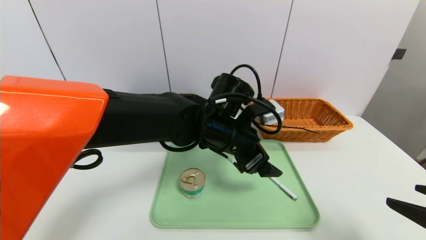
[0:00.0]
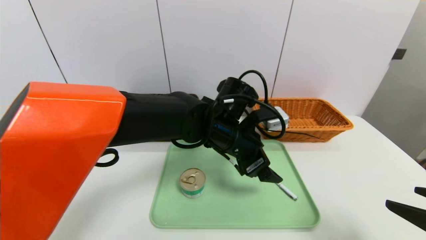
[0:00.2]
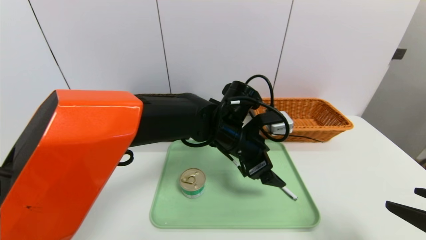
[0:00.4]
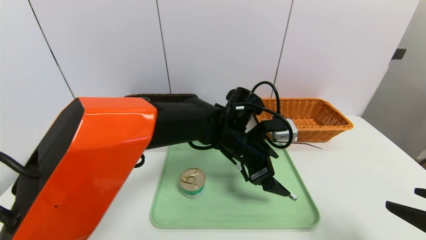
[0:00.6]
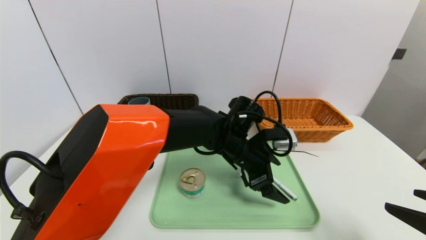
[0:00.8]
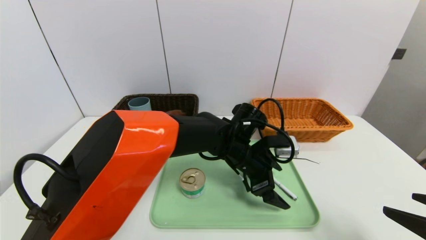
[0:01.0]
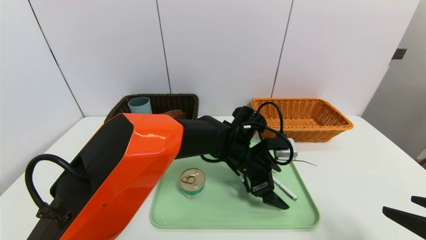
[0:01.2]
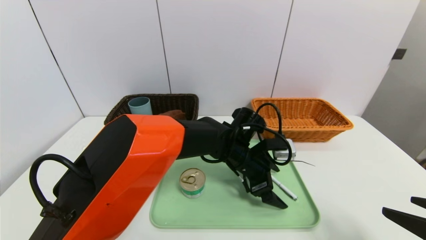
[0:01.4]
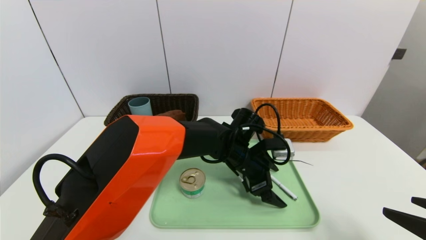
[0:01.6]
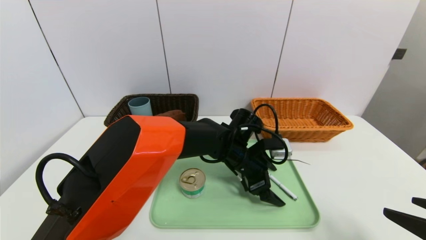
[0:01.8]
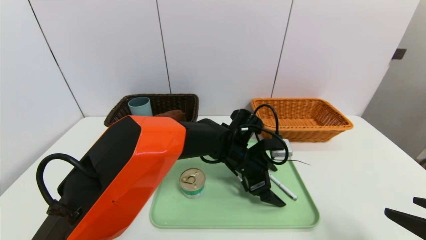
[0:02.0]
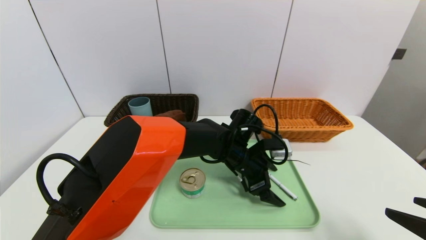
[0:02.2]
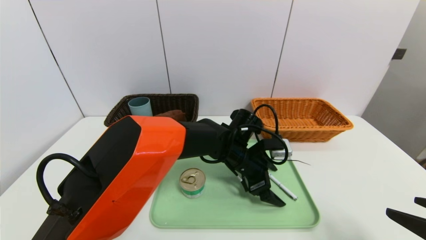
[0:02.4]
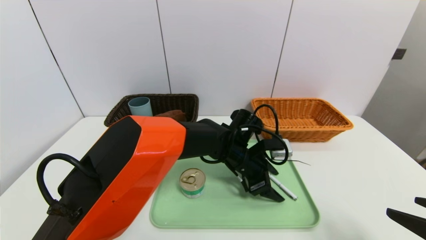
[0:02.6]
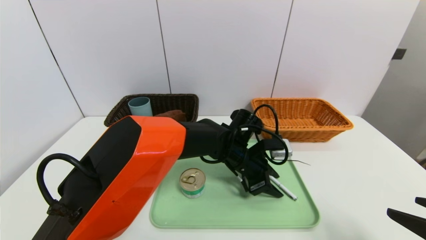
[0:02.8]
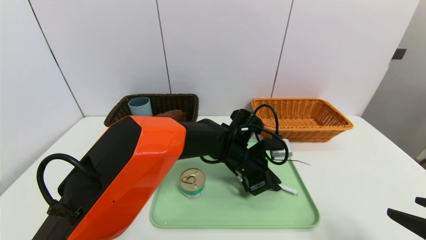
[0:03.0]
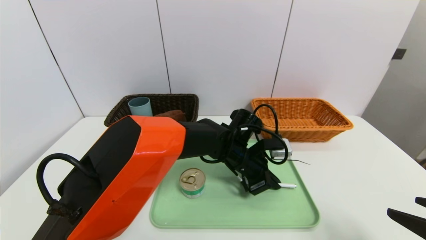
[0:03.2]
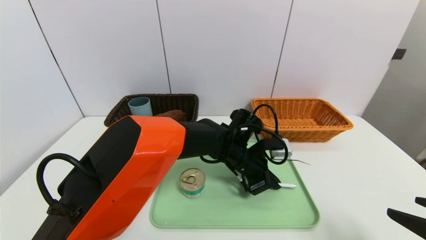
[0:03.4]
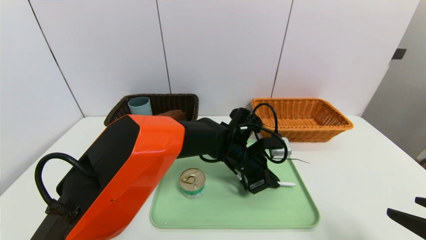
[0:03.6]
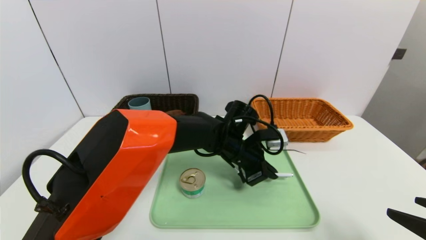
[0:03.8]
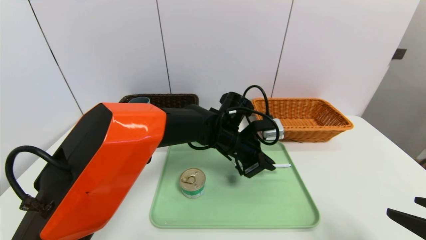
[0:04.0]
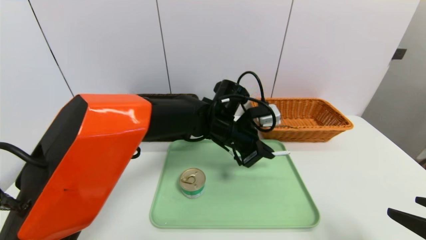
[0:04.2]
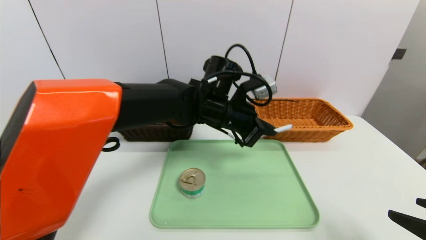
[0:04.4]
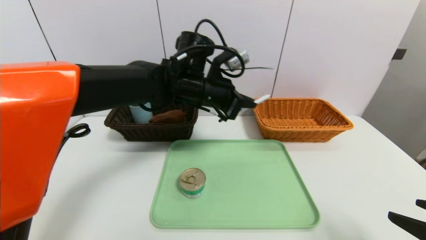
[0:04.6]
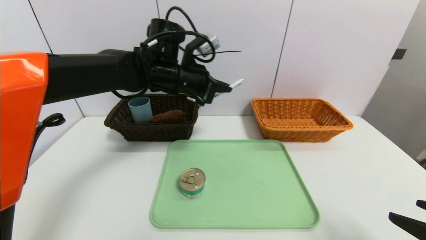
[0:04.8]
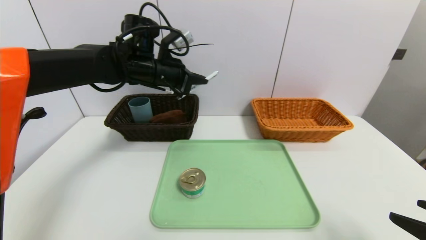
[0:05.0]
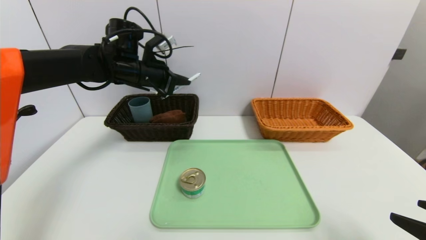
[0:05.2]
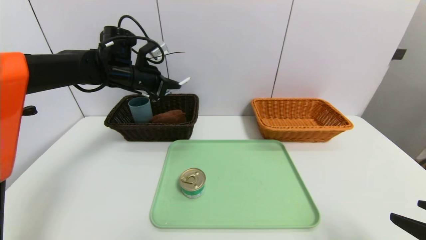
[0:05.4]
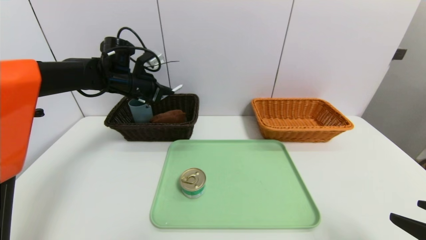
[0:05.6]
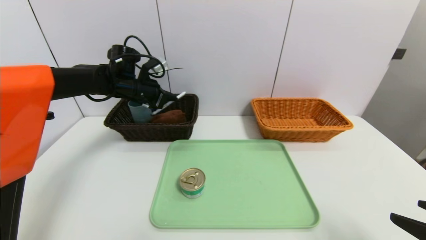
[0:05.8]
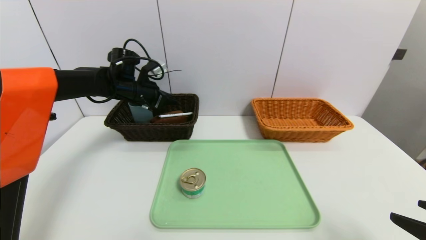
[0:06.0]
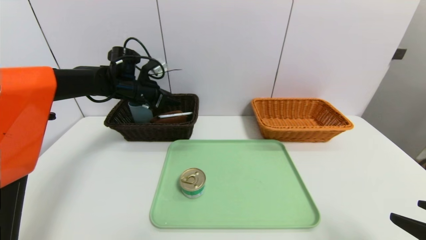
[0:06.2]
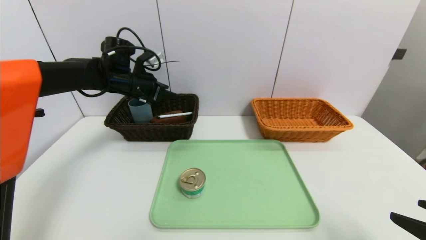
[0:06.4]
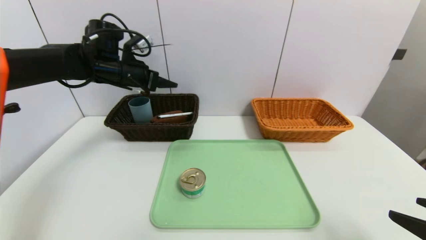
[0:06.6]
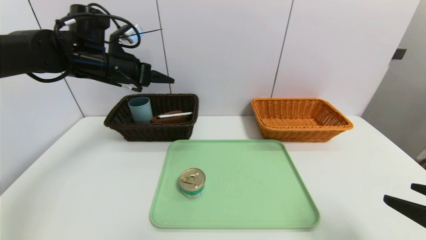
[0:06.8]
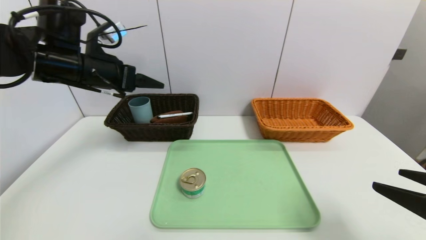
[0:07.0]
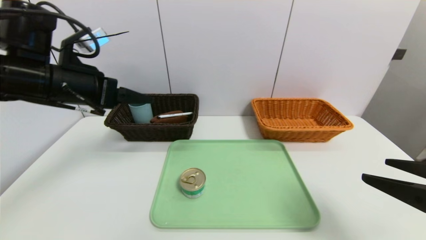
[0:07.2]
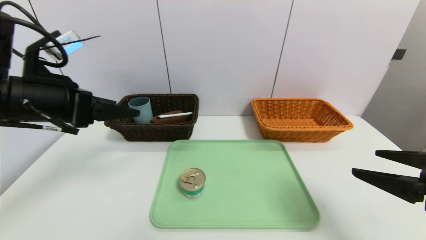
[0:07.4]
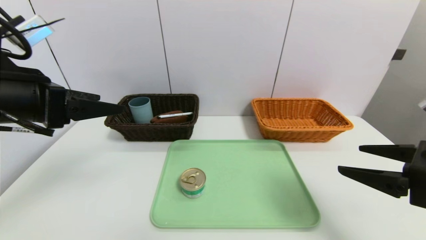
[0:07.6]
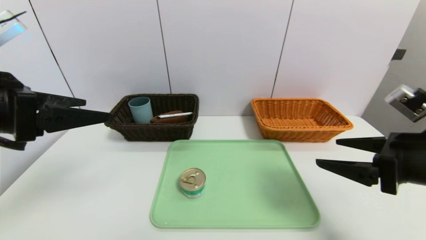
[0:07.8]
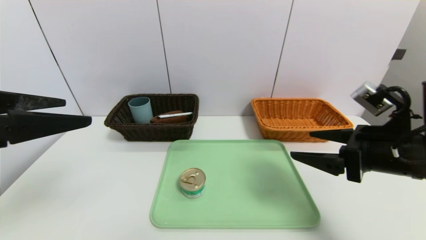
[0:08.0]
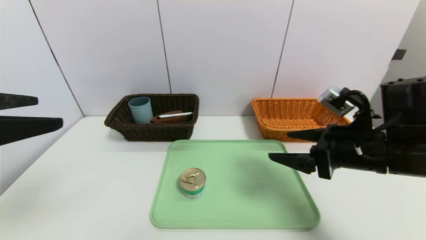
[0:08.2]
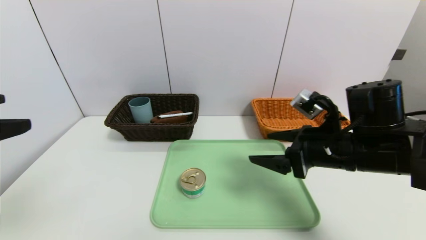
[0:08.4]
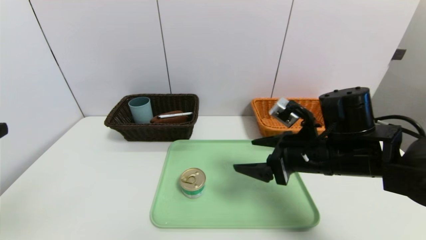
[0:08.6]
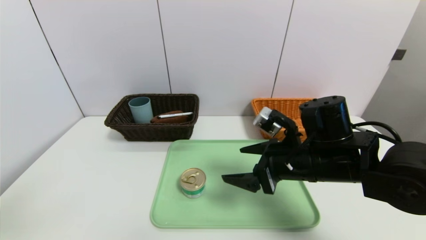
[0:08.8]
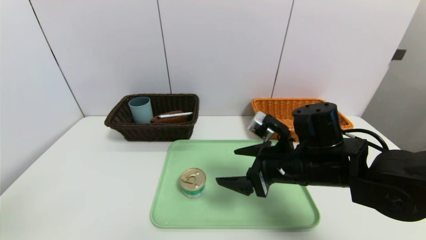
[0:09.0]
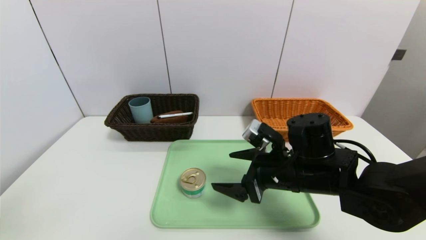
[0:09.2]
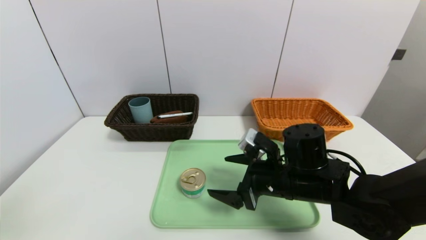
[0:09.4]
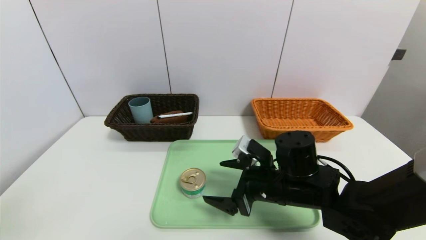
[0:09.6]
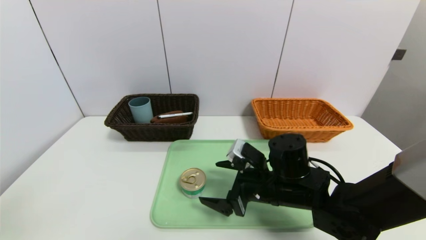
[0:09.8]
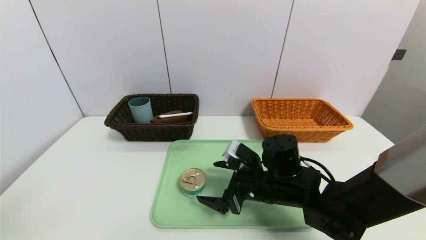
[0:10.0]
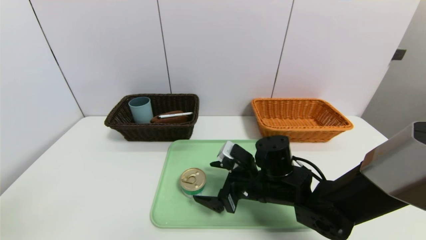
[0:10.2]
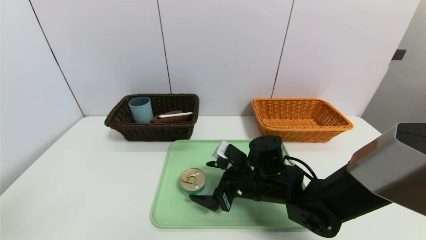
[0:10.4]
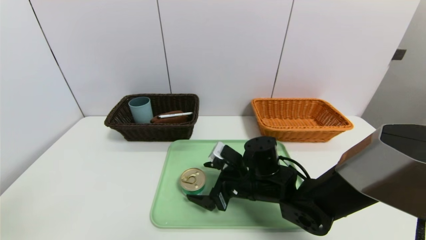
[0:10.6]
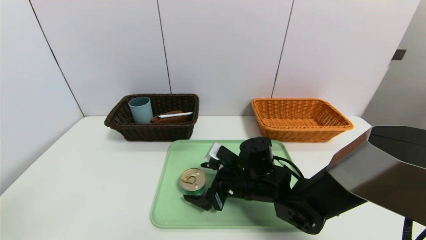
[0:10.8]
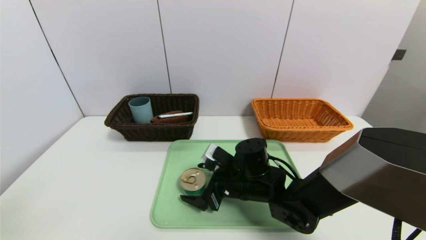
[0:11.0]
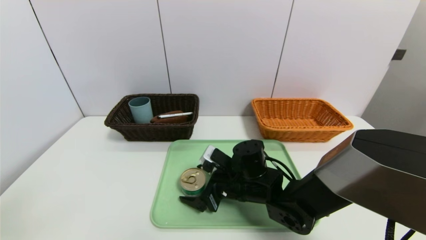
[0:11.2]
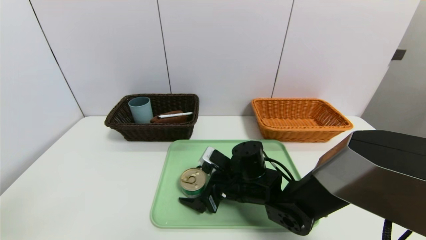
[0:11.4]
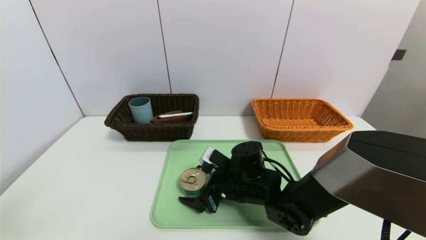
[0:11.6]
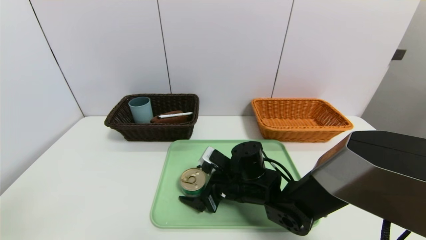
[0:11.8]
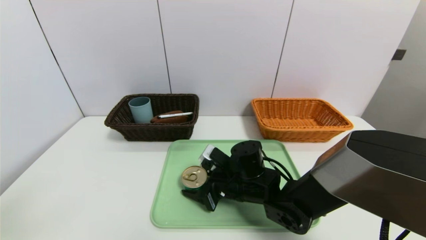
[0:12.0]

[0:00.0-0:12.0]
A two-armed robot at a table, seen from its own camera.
Task of the whole recording: place the food in the right basket with the right gripper, and place the non food items in the left basket with the left gripper.
Step, 0:00.0 to 0:06.2: Grasp the ballpoint pen and put it in the left basket.
0:00.0 to 0:01.6: The left gripper is displaced downward by some 10 cm.
0:01.6 to 0:03.0: The left gripper closes.
0:03.0 to 0:04.4: The left gripper goes approximately 15 cm upward and to the left.
0:04.4 to 0:06.0: The left gripper shifts approximately 25 cm to the left and forward, and opens.
0:06.0 to 0:07.6: The right gripper is displaced forward by approximately 10 cm. The left gripper goes about 25 cm backward, and opens.
0:07.6 to 0:09.0: The left gripper goes some 15 cm backward; the right gripper goes some 20 cm to the left, forward and downward.
0:09.0 to 0:10.4: The right gripper travels downward and to the left by some 10 cm.
0:10.4 to 0:12.0: The right gripper closes.

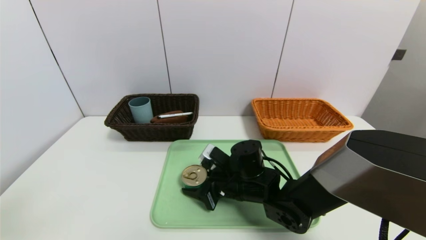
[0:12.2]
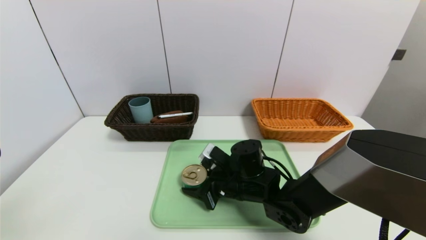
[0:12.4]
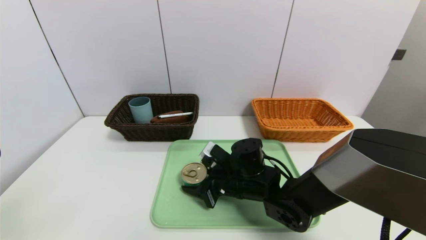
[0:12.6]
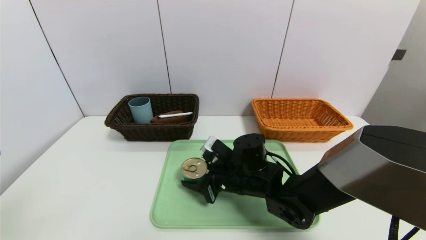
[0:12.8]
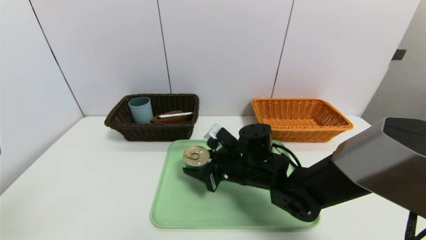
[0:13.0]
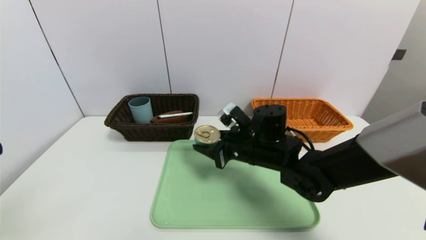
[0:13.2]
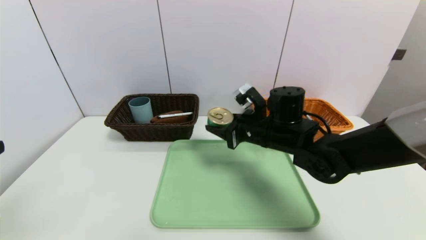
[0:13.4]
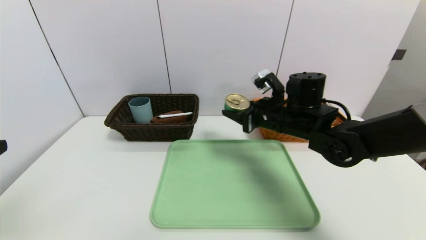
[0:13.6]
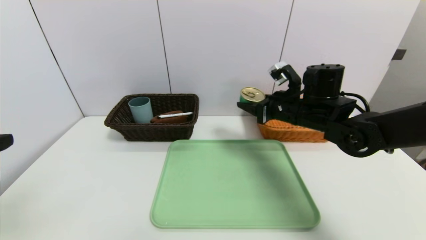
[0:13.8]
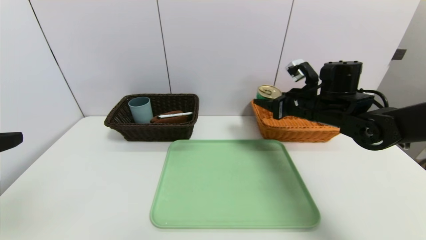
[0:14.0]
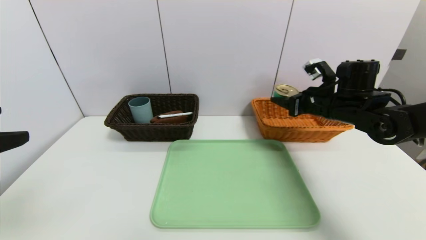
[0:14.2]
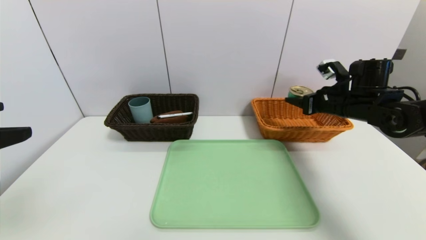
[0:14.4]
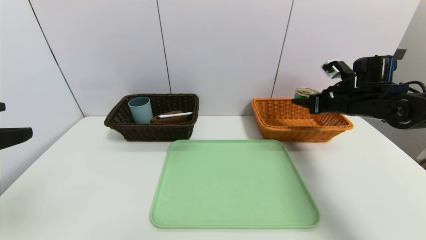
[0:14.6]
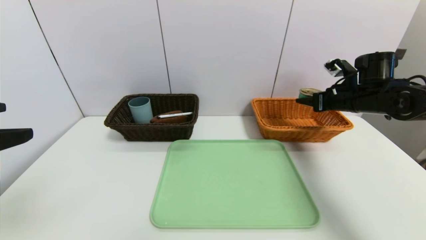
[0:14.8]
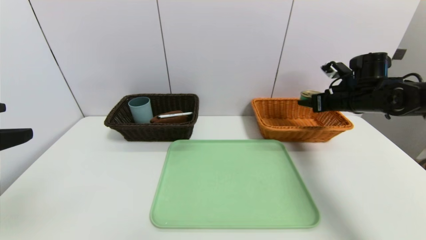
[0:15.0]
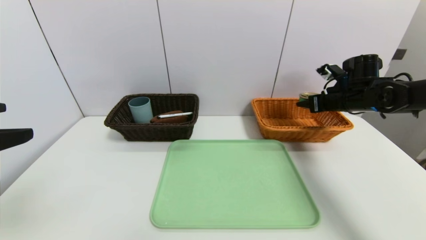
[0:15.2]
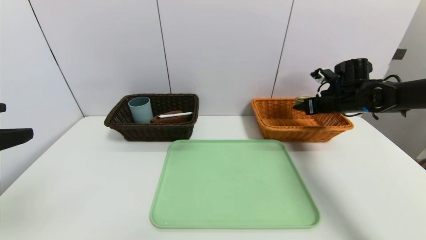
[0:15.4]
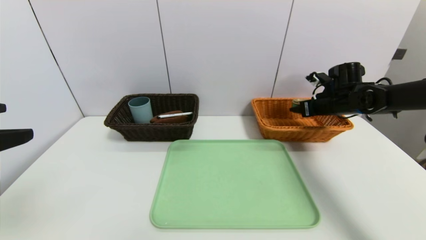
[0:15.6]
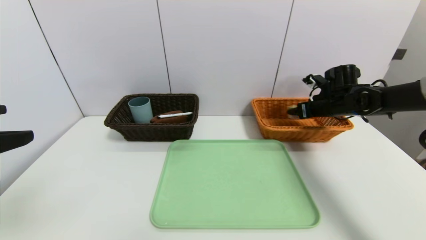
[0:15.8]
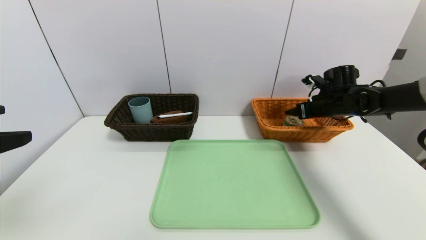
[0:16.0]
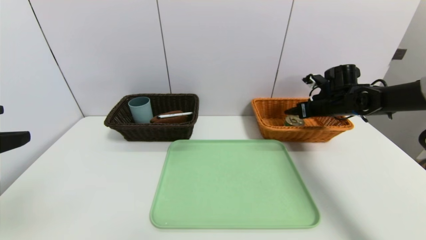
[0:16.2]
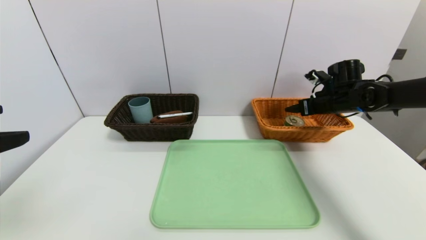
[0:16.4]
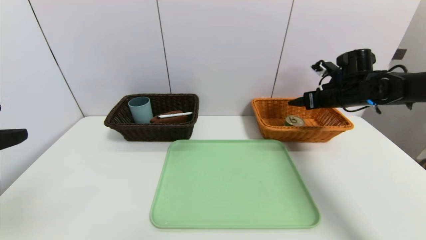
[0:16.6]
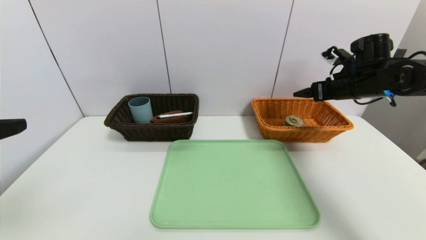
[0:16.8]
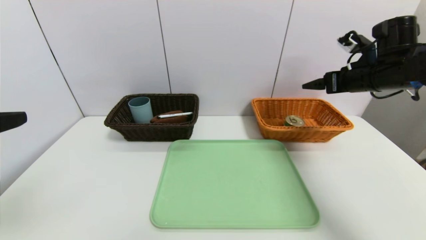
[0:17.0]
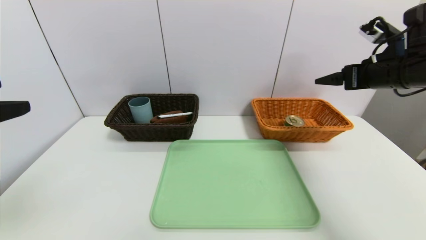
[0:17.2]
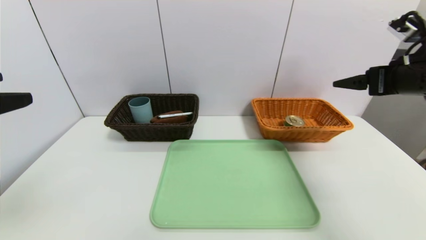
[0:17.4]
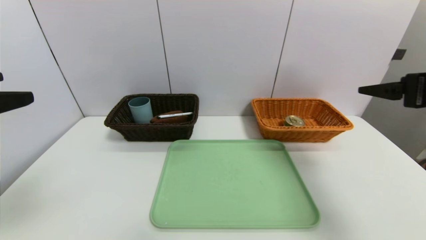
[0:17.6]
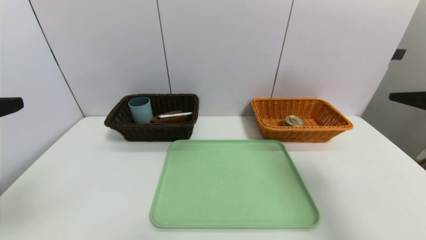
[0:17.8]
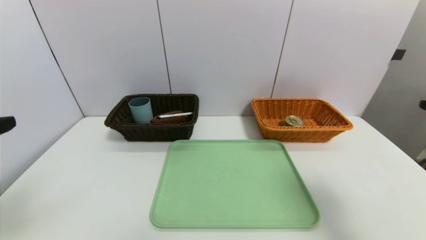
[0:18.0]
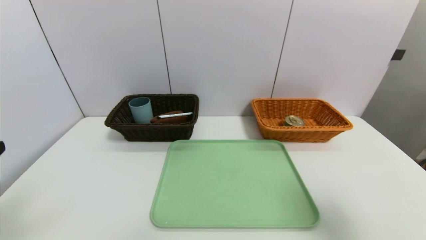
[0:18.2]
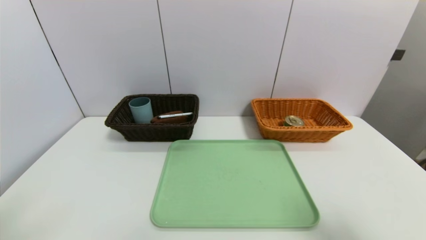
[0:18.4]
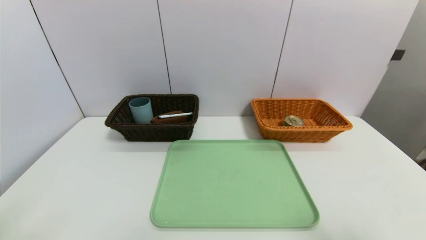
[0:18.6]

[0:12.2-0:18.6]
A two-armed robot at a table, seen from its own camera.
Task of the whole recording: place the food in the right basket with the right gripper, and place the non food items in the left basket with the left gripper.
Step, 0:12.2 to 0:16.4: Grasp the can and put it in the right basket.
0:12.2 to 0:13.8: The right gripper heads upward, to the right and forward, covering approximately 20 cm.
0:13.8 to 0:15.4: The right gripper travels to the right and forward by roughly 15 cm.
0:15.4 to 0:17.0: The right gripper travels upward and backward by approximately 10 cm, and opens.
0:17.0 to 0:18.6: The right gripper moves backward, about 35 cm; the left gripper travels backward and downward by about 10 cm.
